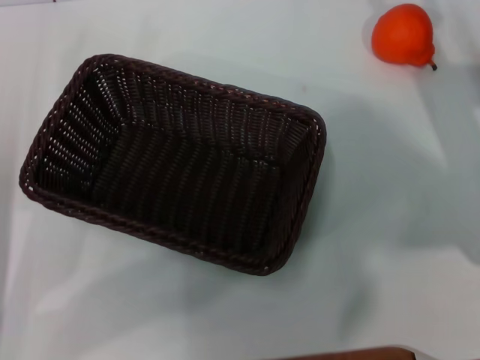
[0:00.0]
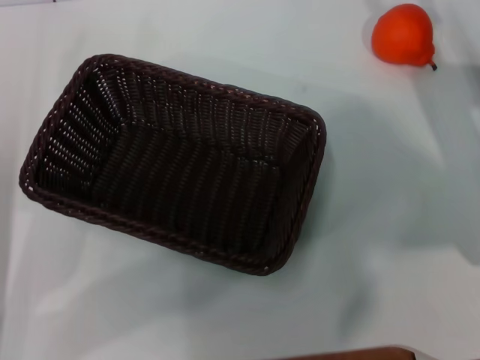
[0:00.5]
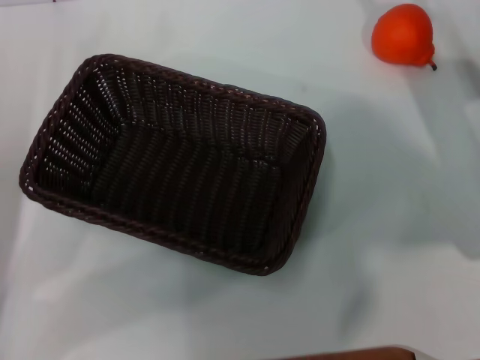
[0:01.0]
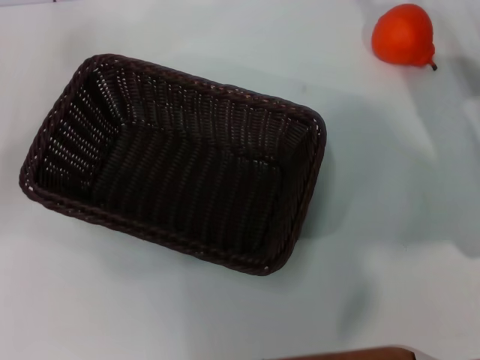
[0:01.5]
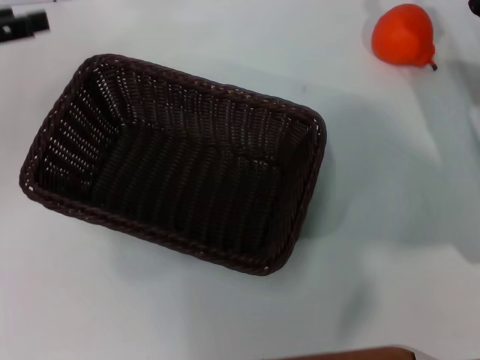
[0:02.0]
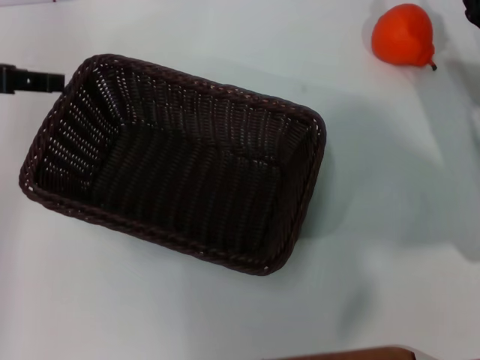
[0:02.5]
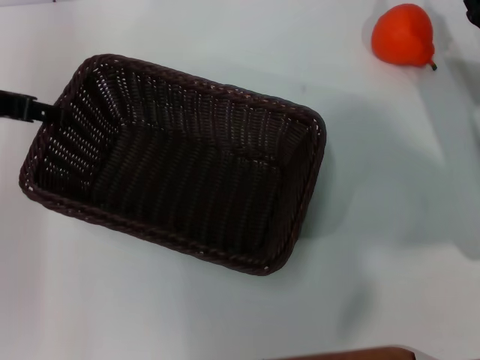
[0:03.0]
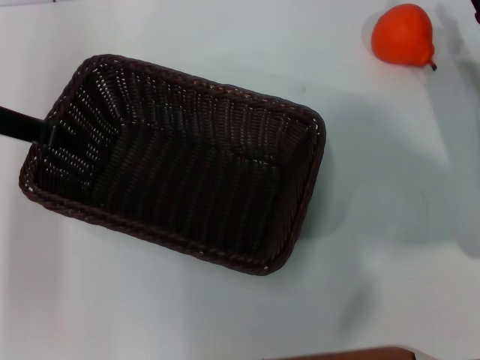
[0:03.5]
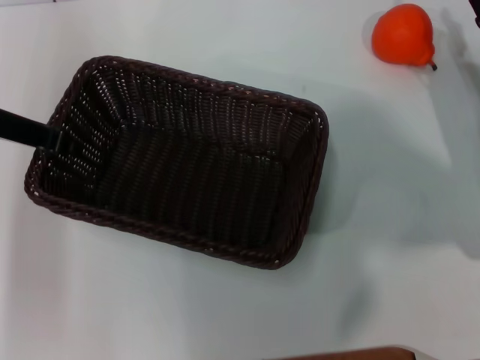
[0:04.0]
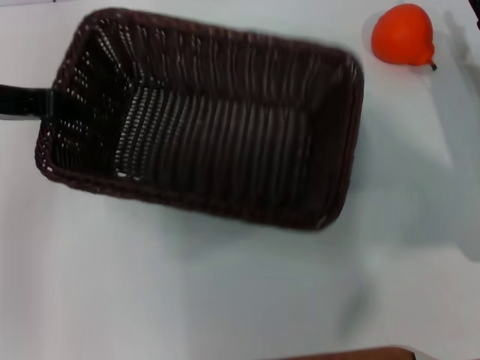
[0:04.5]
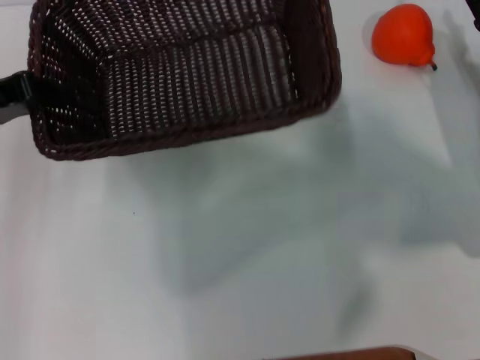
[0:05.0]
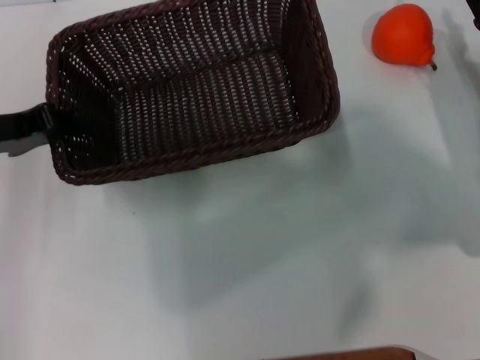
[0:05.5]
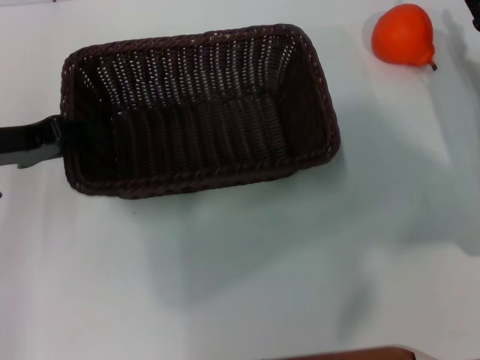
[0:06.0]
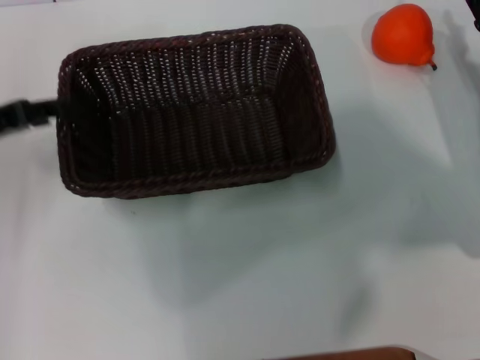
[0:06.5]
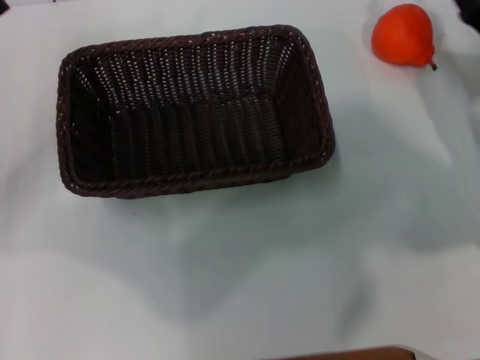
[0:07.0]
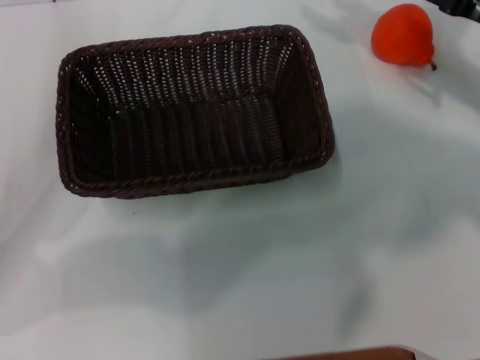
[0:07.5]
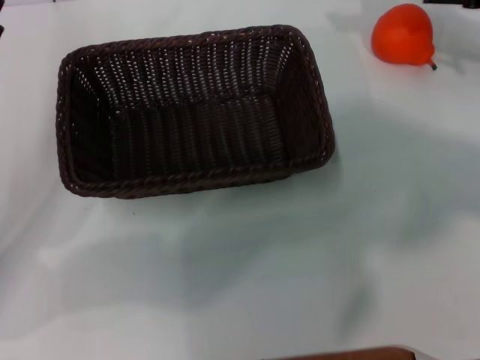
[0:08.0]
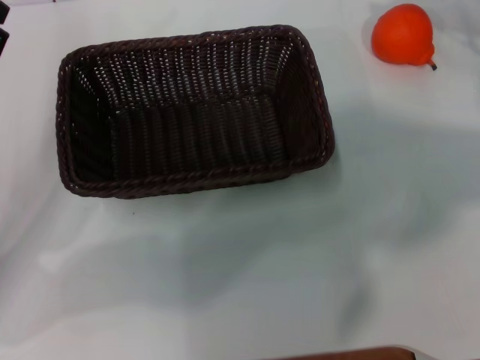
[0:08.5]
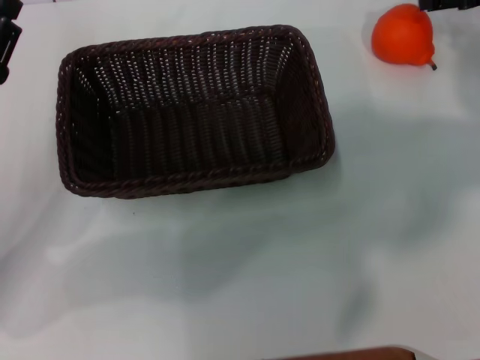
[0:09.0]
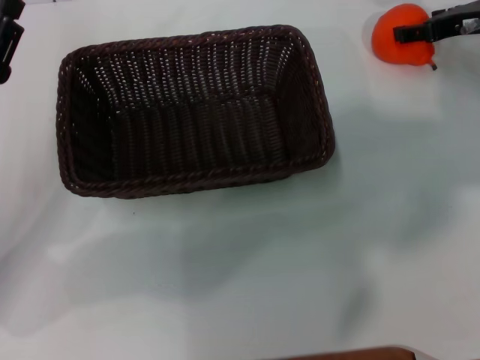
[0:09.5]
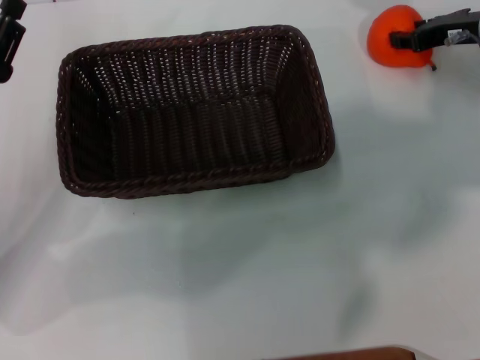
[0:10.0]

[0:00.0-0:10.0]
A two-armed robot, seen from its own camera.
Task of the whole recording: the left gripper pick up the black basket and place it horizontally in the middle of the table, the right gripper pick up the orange and place it into the black basket.
Step, 0:00.0 to 0:04.0: Pick up the dark basket with the left gripper.
Step, 0:05.0 to 0:06.5: Place the dark basket in the center of view with the left gripper.
0:00.0 to 0:02.0: The left gripper is displaced upward and forward by approximately 15 cm.
0:02.0 to 0:04.0: The left gripper goes about 5 cm to the right, and closes up.
0:04.0 to 0:06.0: The left gripper ends up about 5 cm from where it was.
0:06.0 to 0:08.0: The right gripper heads upward, covering approximately 15 cm; the left gripper ends up roughly 5 cm from where it was, and opens up.
0:08.0 to 0:10.0: The right gripper travels downward by roughly 5 cm.

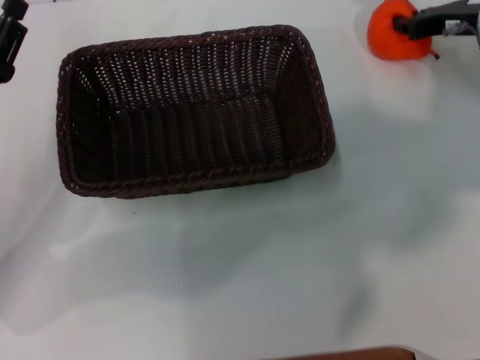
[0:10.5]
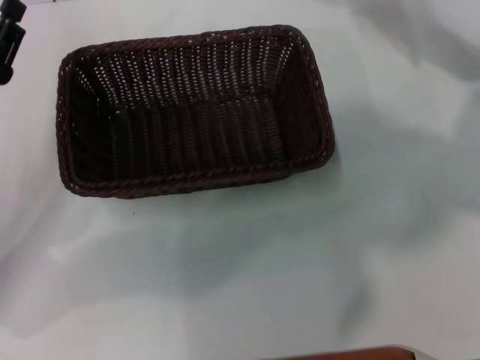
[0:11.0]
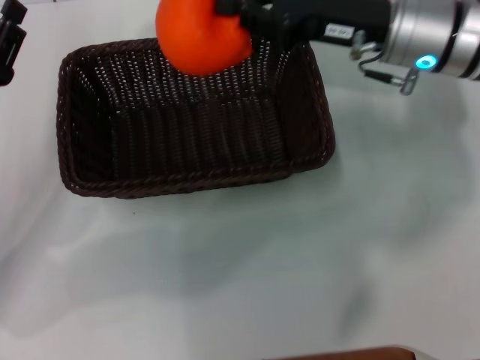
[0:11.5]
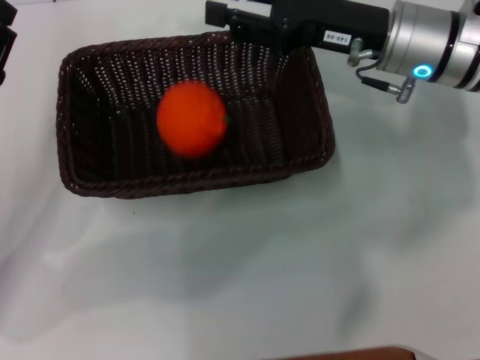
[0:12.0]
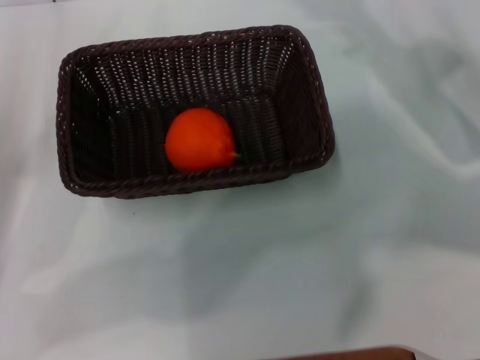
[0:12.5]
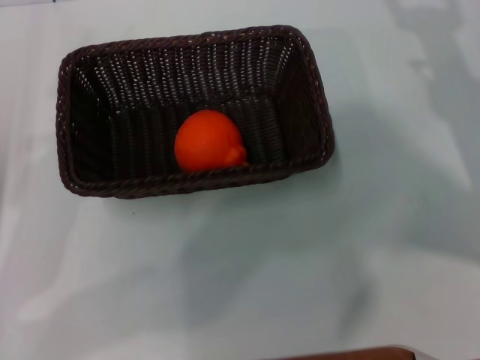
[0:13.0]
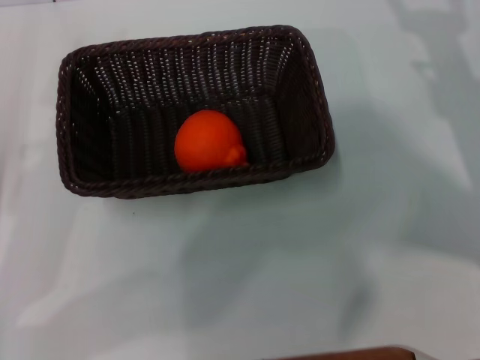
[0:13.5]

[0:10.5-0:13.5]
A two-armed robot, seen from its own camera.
Task of the whole recording: the left gripper pick up the black basket and place it horizontally in the middle of the table, the right gripper pick up the orange and place it into the black basket.
Step, 0:11.0 to 0:12.0: Place the orange into the dark basket with the right gripper.
0:10.5 to 0:12.0: The right gripper heads to the left and backward, covering roughly 15 cm.
0:12.0 to 0:13.5: The left gripper moves backward, roughly 5 cm. Meanwhile the right gripper travels to the right, backward and downward by approximately 15 cm, and opens.

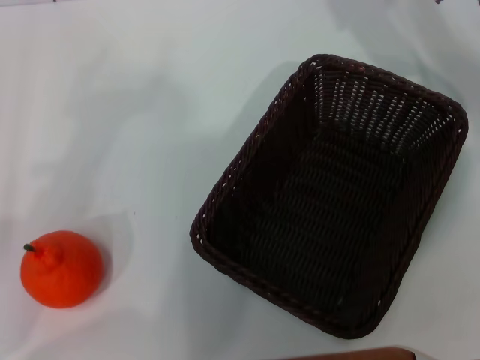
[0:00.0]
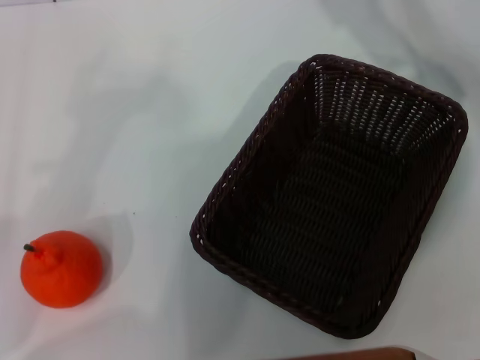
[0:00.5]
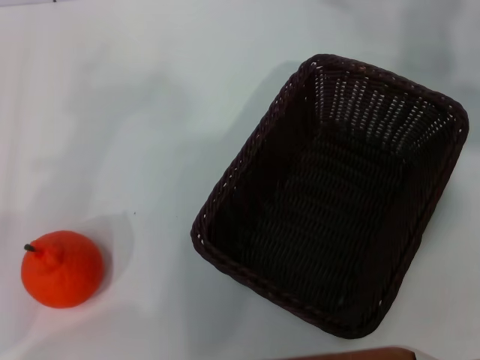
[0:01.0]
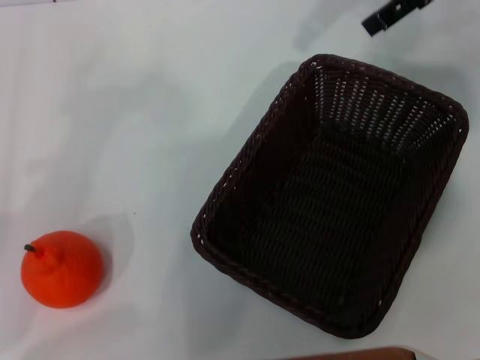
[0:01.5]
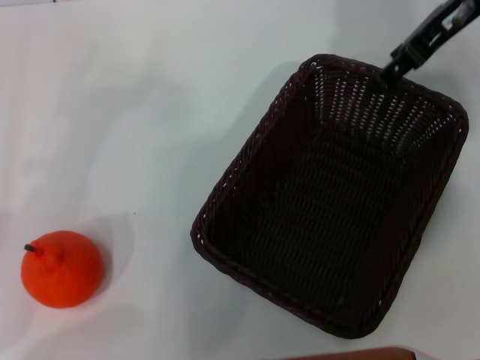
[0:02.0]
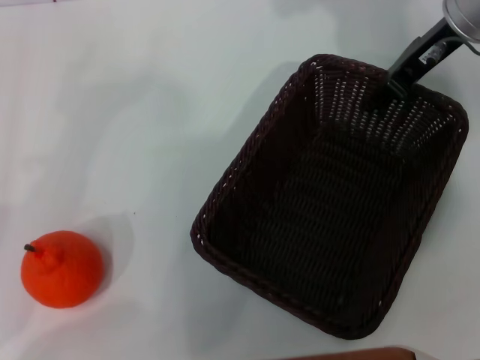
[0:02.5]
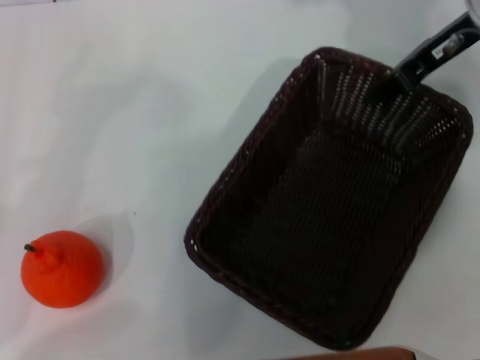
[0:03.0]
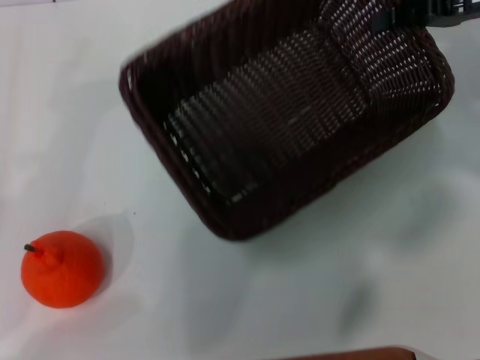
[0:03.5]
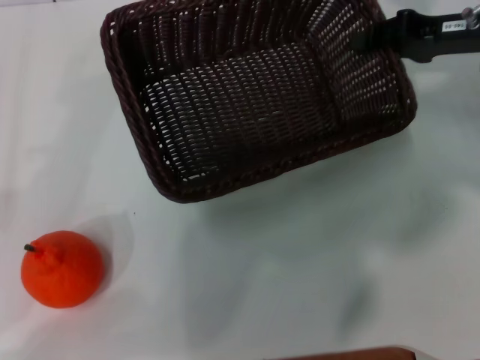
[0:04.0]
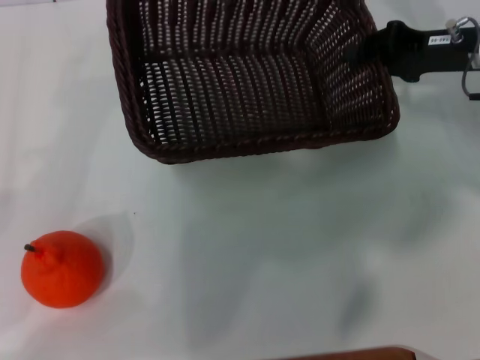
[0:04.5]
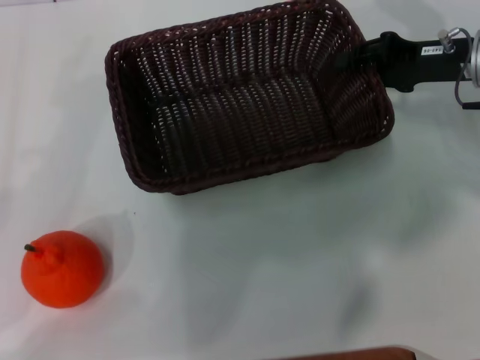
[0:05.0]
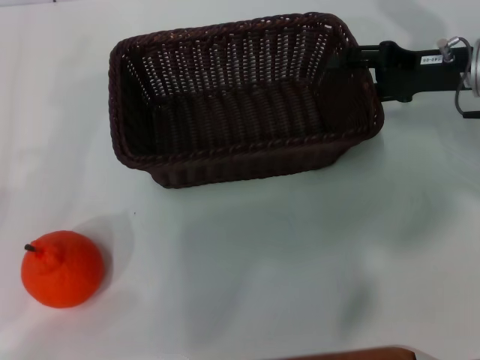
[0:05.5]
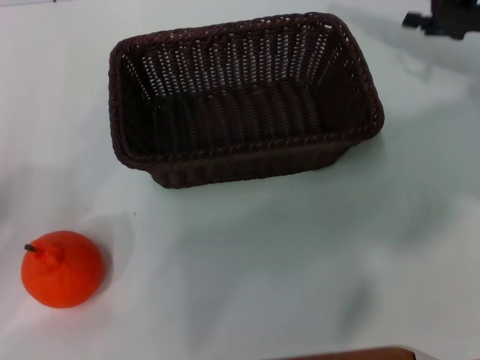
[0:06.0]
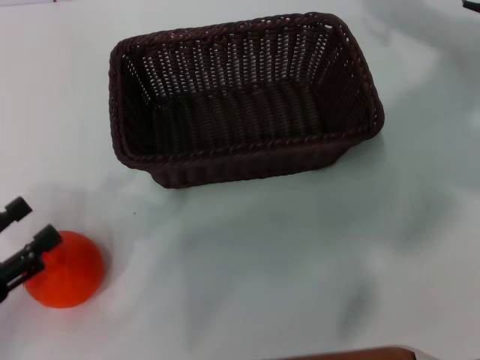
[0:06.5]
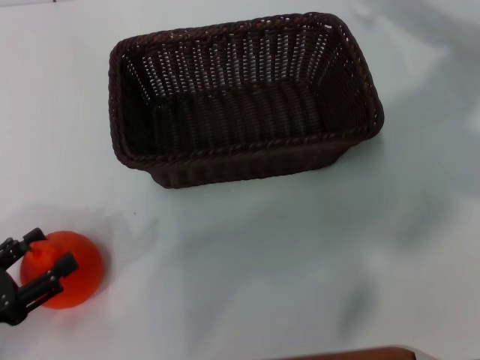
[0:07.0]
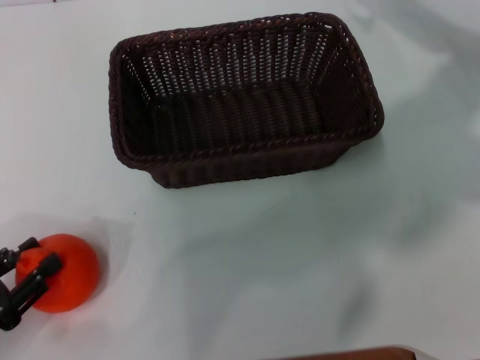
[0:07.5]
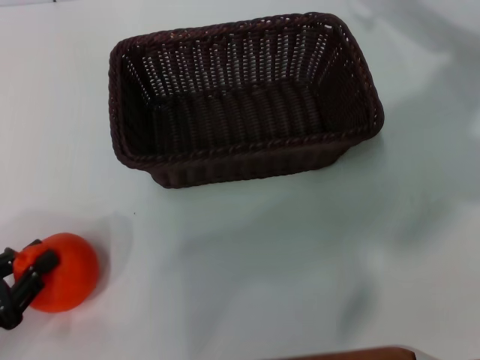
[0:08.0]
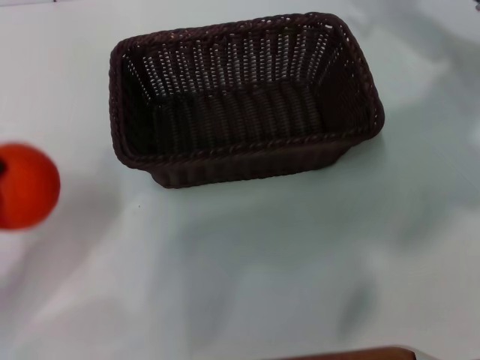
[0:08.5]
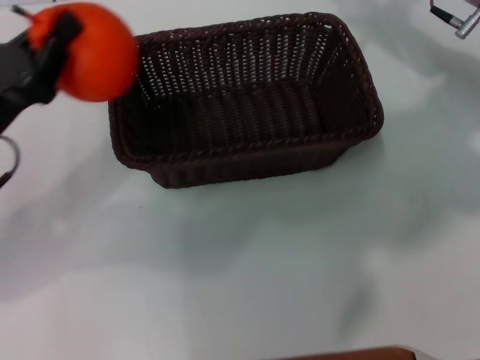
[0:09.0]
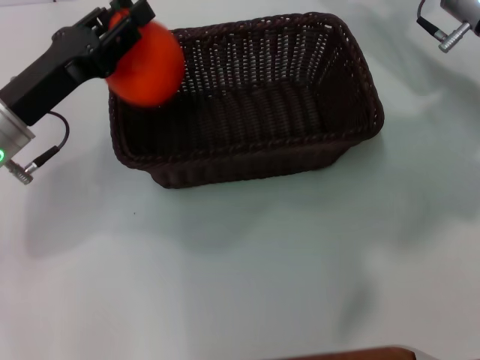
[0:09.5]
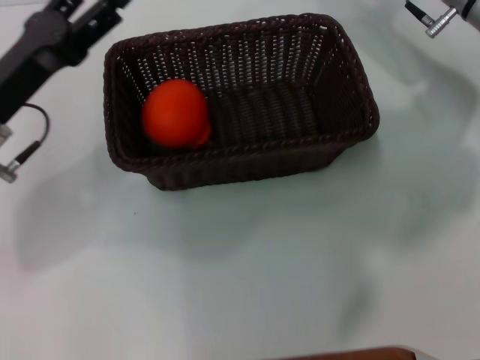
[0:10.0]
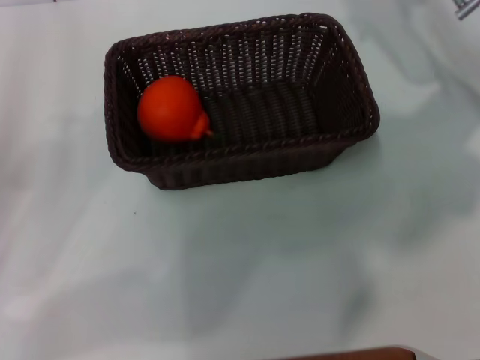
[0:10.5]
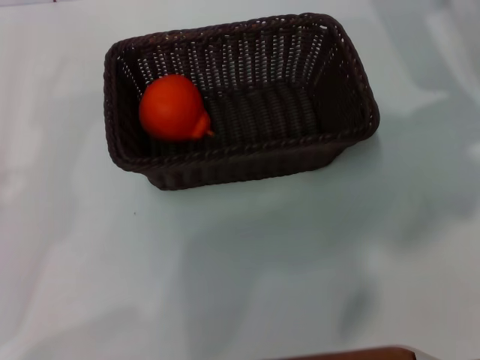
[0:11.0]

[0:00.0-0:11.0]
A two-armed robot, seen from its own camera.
Task of the whole recording: the right gripper pick up the black basket and place it horizontally in the middle of the table, the left gripper pick up the orange and place it into the black basket.
Step, 0:00.0 to 0:03.0: Pick up the dark basket with the right gripper.
Step, 0:03.5 to 0:05.5: Place the dark basket in the center of view with the right gripper.
Step, 0:06.0 to 0:08.0: Pick up the orange with the left gripper.
Step, 0:08.5 to 0:09.5: Place the orange into the dark basket with the left gripper.
0:00.0 to 0:02.0: The right gripper is displaced upward by roughly 5 cm.
0:02.0 to 0:03.5: The right gripper heads to the right, covering about 5 cm, and closes up.
0:03.5 to 0:05.5: The right gripper travels downward by roughly 10 cm, and opens up.
0:05.5 to 0:07.5: The left gripper moves downward and backward, approximately 10 cm. Meanwhile the right gripper travels forward and upward by approximately 10 cm.
0:07.5 to 0:09.0: The left gripper shifts approximately 20 cm forward, upward and to the right, and closes its fingers.
0:09.0 to 0:11.0: The left gripper shifts about 15 cm backward and to the left, and opens its fingers.
